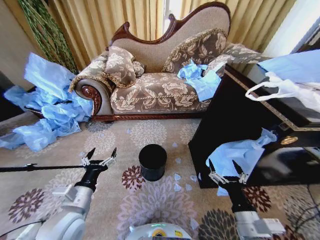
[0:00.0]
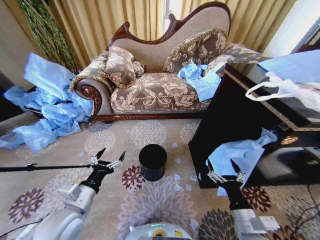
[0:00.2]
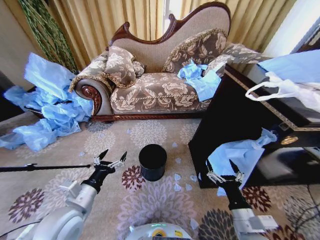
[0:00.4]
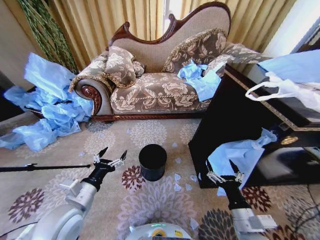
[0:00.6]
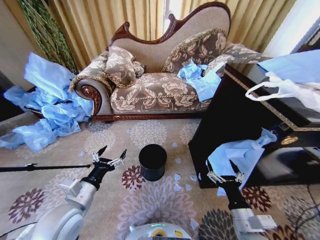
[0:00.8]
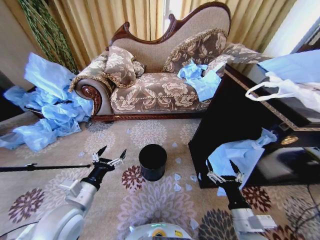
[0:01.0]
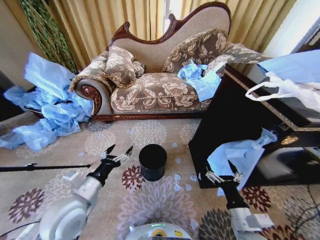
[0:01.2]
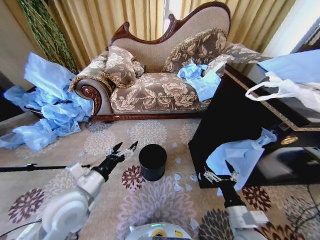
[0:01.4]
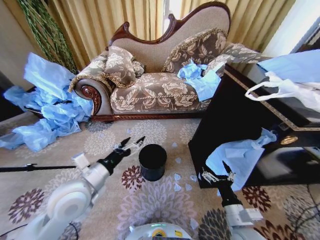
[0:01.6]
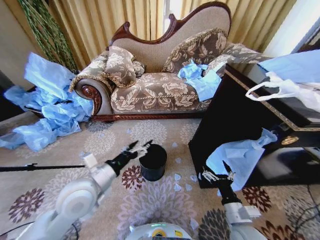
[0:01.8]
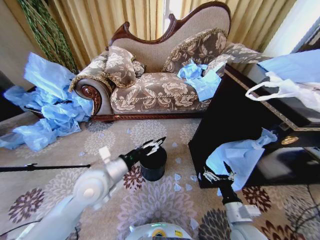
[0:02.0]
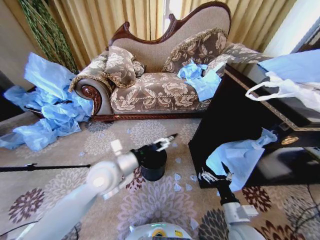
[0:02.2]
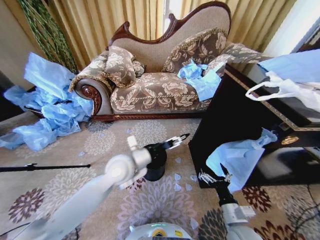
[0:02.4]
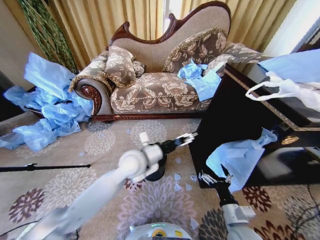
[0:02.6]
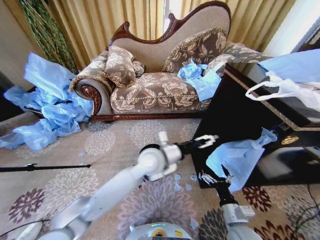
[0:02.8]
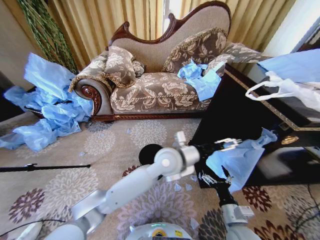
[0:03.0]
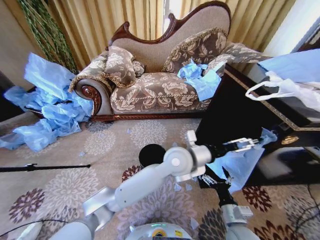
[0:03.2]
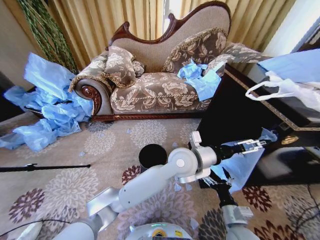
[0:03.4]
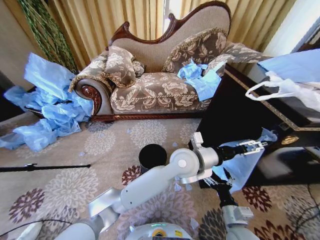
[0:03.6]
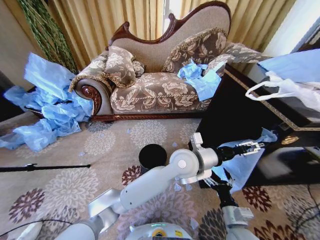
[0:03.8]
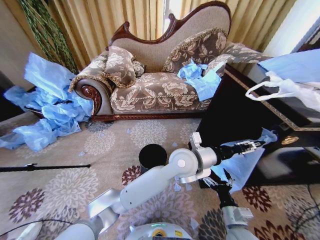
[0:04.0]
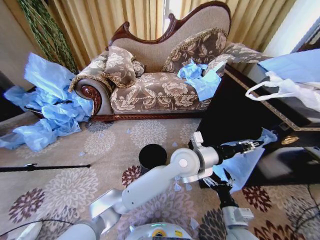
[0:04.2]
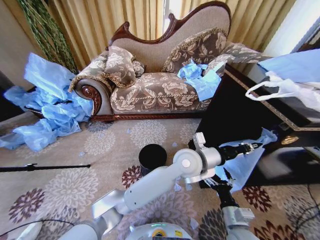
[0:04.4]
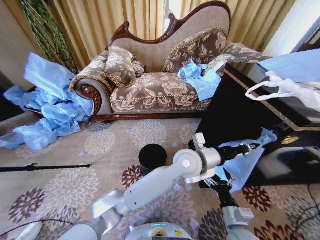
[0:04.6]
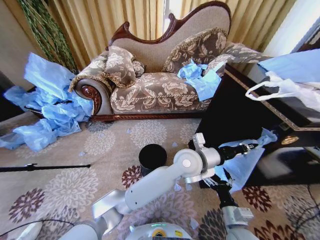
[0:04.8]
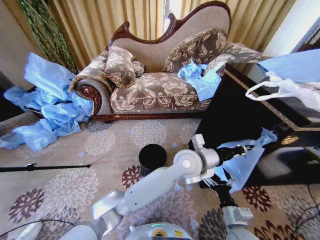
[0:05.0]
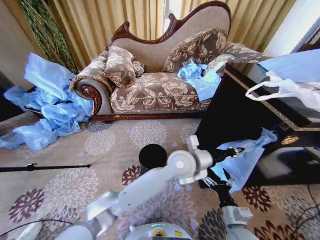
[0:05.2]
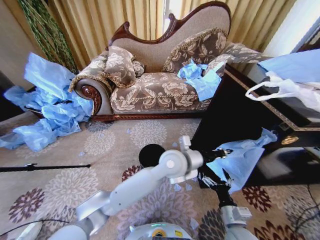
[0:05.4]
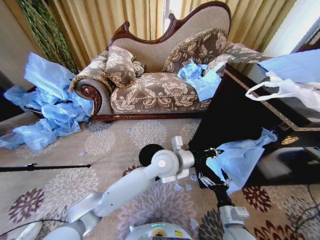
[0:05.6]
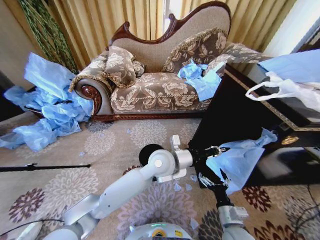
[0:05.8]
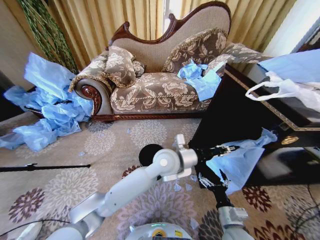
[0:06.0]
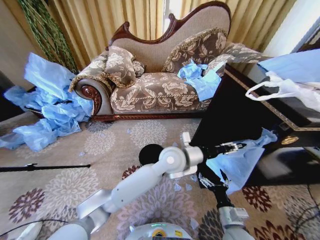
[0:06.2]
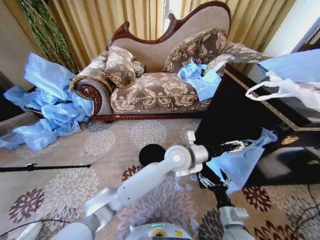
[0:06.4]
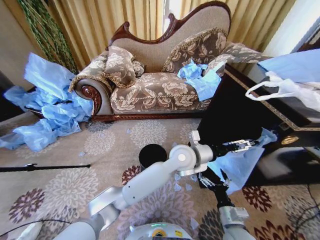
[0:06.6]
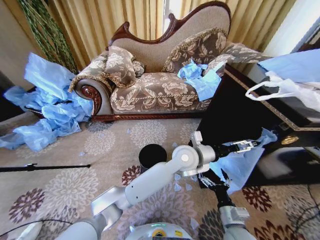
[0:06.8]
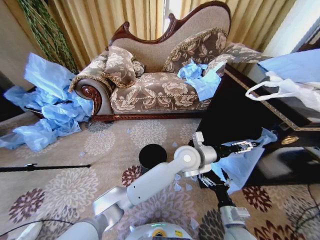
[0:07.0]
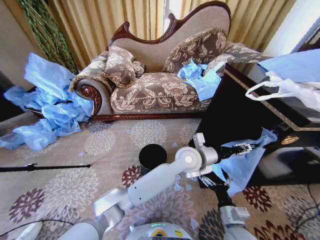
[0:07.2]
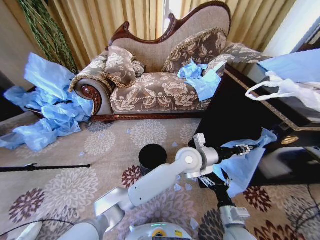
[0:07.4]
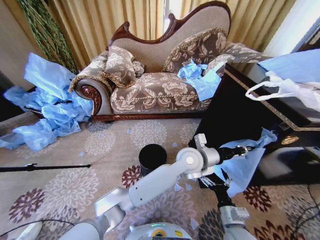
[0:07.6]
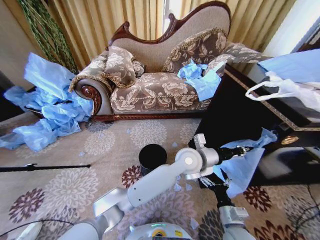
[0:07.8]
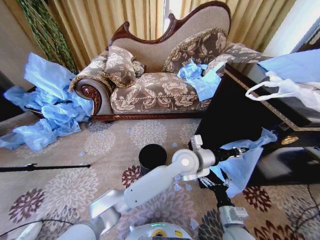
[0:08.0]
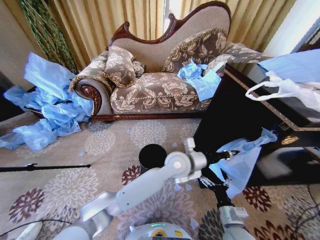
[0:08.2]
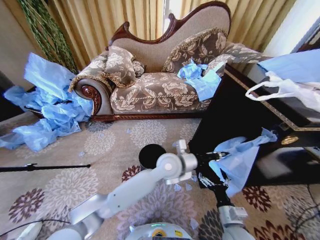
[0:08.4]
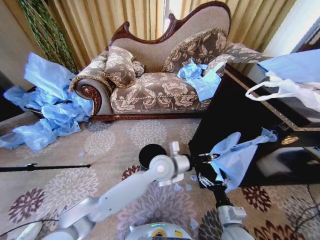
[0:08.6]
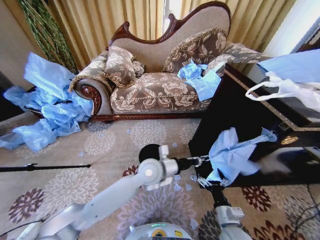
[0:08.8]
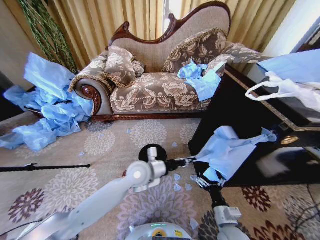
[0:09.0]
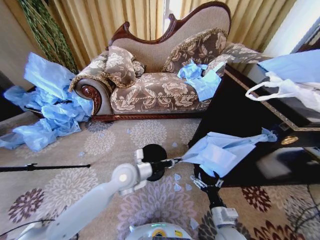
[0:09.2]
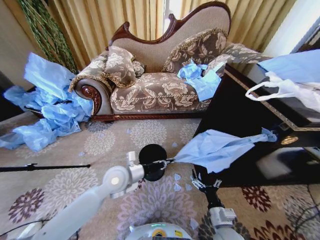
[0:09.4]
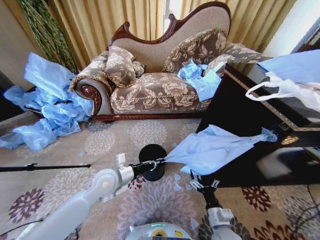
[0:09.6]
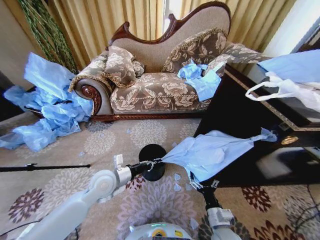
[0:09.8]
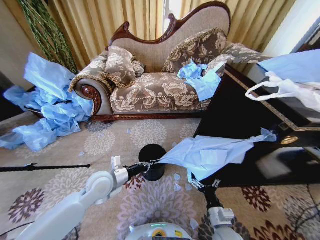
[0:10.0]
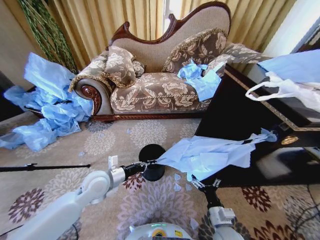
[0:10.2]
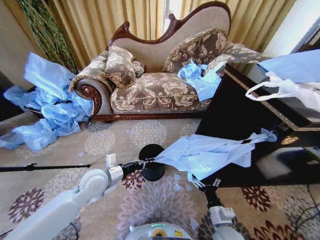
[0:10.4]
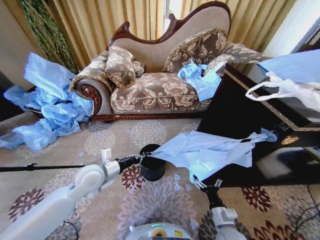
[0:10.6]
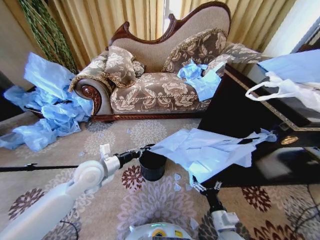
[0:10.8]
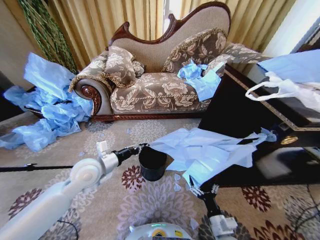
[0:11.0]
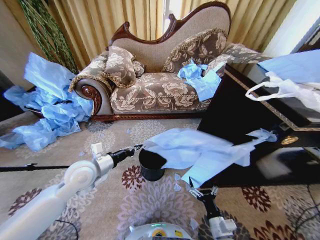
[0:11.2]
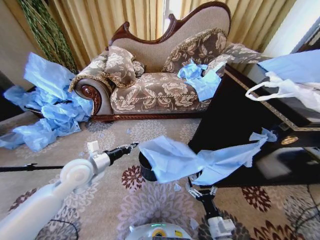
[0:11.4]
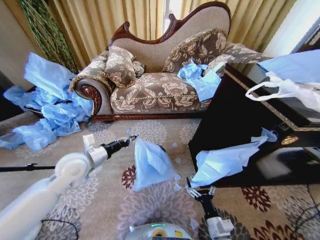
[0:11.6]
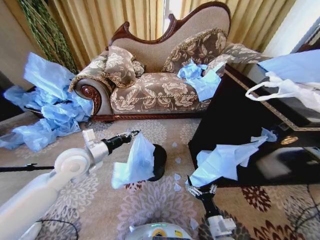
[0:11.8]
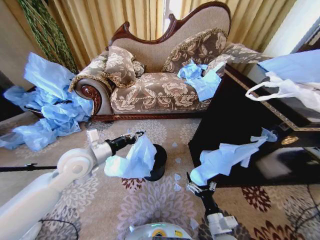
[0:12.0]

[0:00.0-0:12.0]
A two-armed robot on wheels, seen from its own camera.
Task of the whole recording: Place a garbage bag over the trash bin.
0:01.6 to 0:03.0: The left gripper travels to the right and forward by some 30 cm.
0:03.0 to 0:04.4: The left gripper travels to the right by roughly 5 cm, and closes.
0:04.4 to 0:06.0: The left gripper moves to the left, approximately 5 cm.
0:06.0 to 0:07.6: The left gripper is displaced to the right by about 10 cm, and opens, then closes again.
0:07.6 to 0:09.0: The left gripper moves to the left, some 20 cm.
0:09.0 to 0:10.4: The left gripper travels to the left by roughly 15 cm.
0:10.4 to 0:12.0: The left gripper shifts some 10 cm upward.

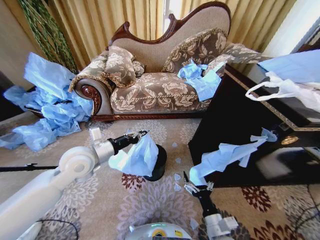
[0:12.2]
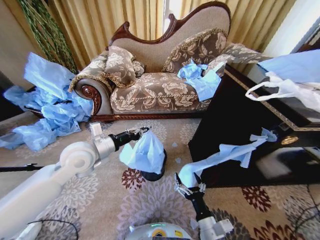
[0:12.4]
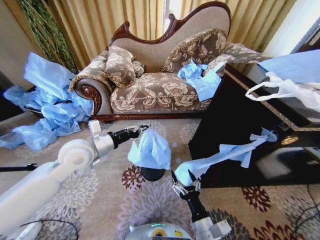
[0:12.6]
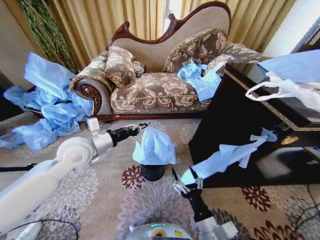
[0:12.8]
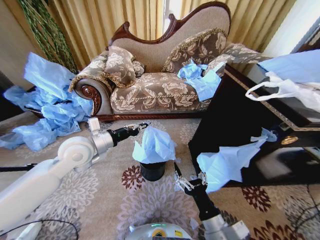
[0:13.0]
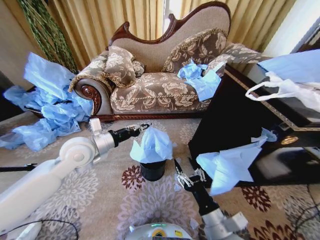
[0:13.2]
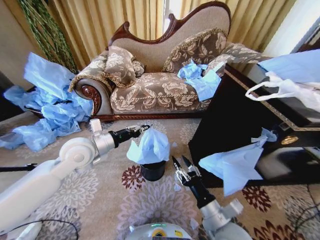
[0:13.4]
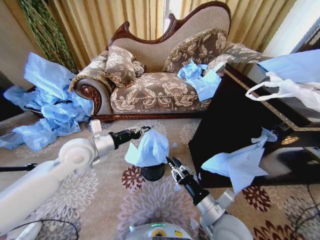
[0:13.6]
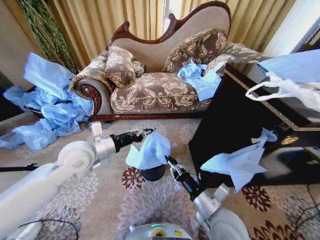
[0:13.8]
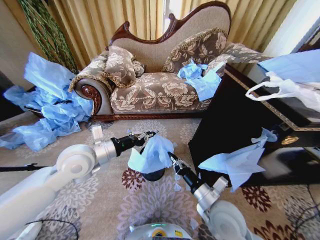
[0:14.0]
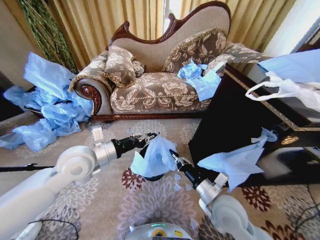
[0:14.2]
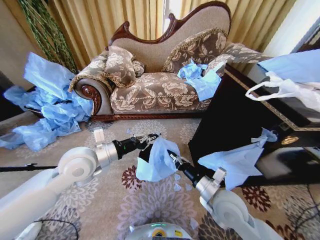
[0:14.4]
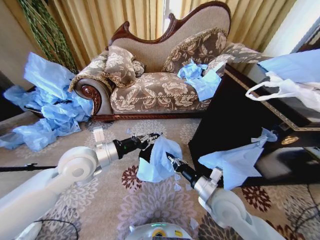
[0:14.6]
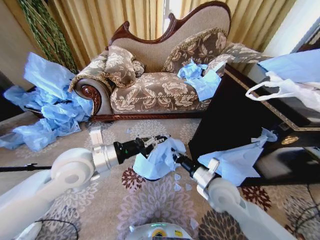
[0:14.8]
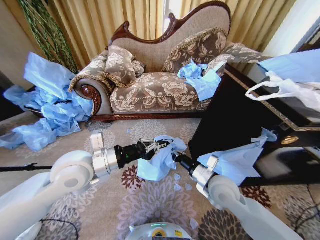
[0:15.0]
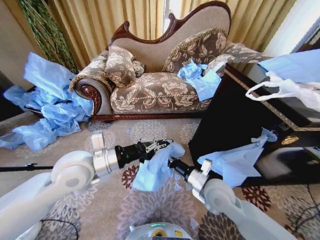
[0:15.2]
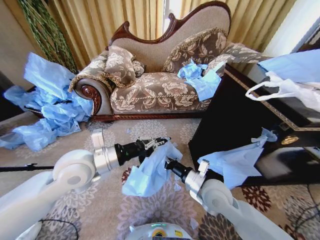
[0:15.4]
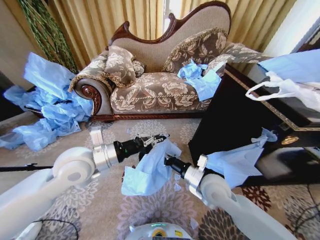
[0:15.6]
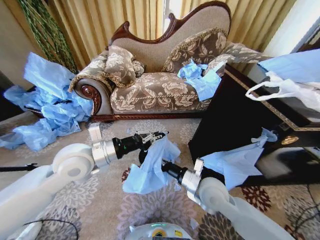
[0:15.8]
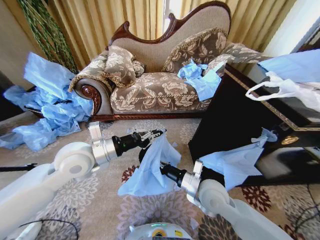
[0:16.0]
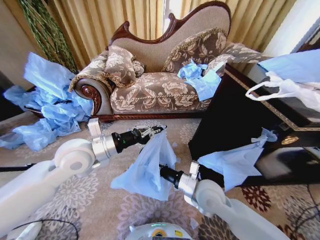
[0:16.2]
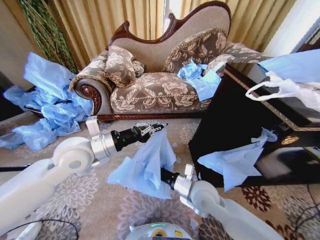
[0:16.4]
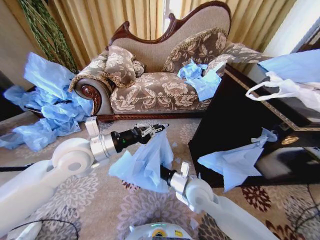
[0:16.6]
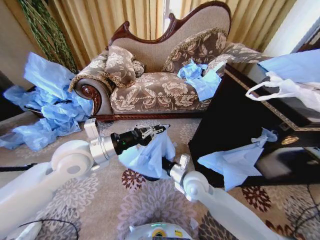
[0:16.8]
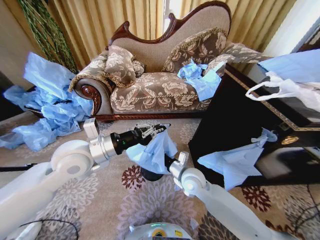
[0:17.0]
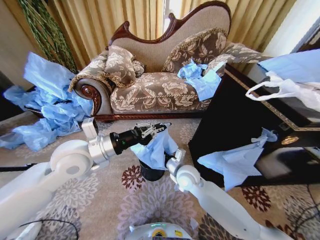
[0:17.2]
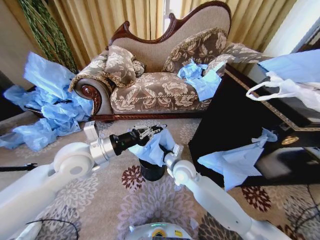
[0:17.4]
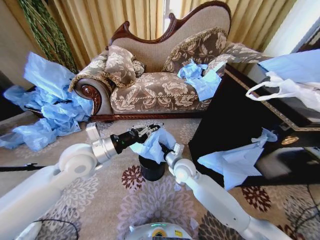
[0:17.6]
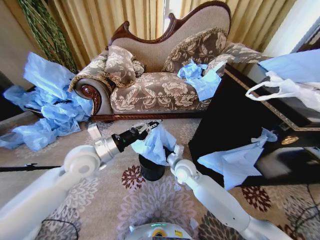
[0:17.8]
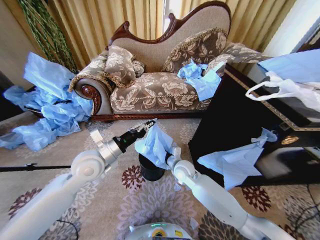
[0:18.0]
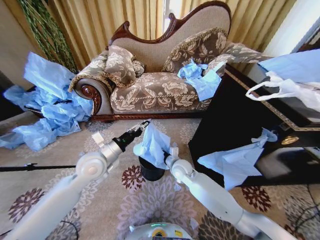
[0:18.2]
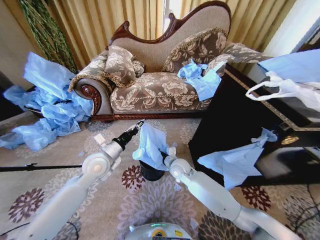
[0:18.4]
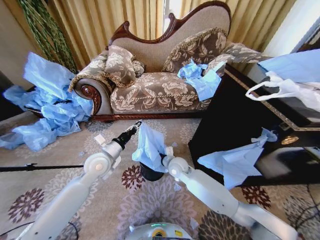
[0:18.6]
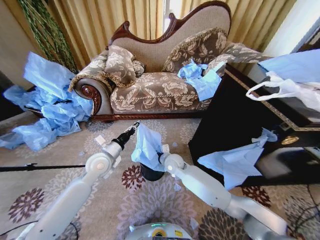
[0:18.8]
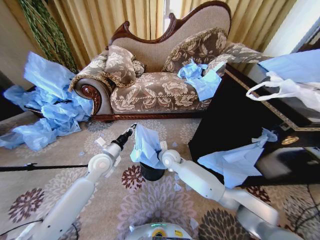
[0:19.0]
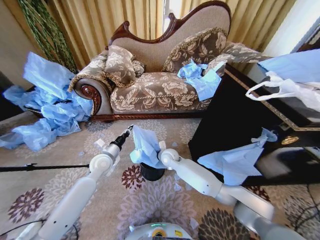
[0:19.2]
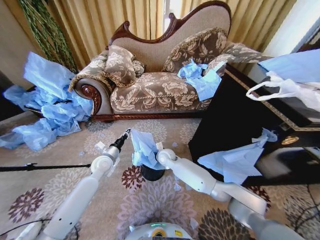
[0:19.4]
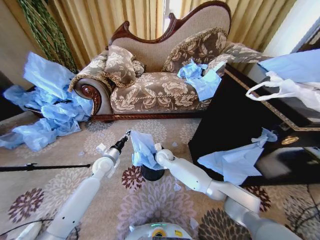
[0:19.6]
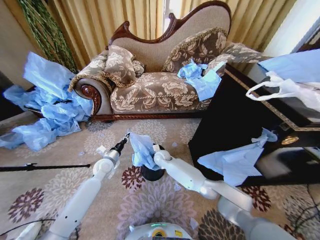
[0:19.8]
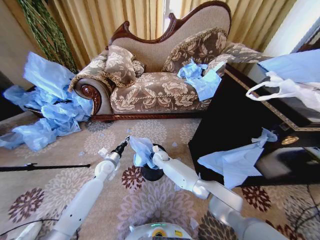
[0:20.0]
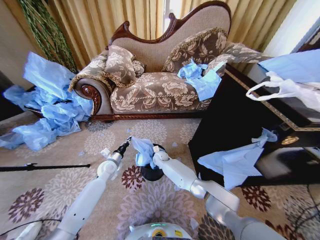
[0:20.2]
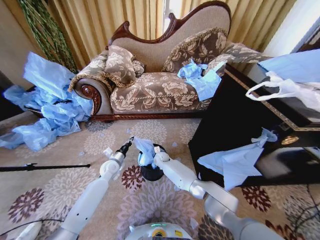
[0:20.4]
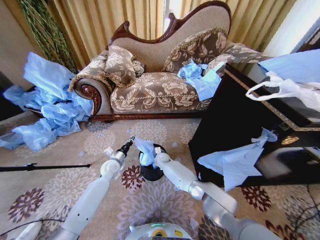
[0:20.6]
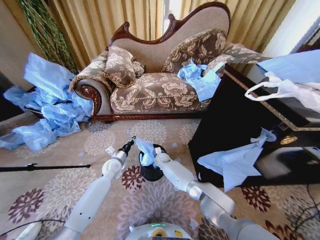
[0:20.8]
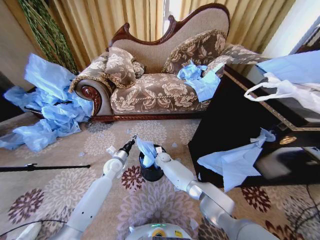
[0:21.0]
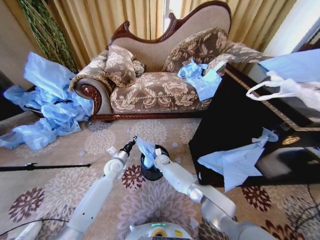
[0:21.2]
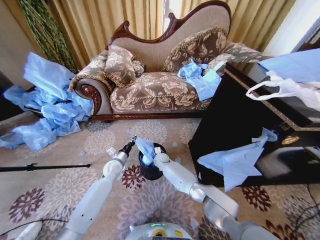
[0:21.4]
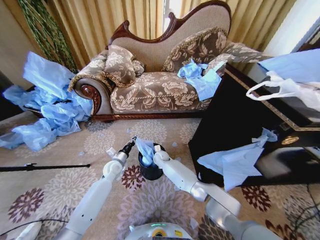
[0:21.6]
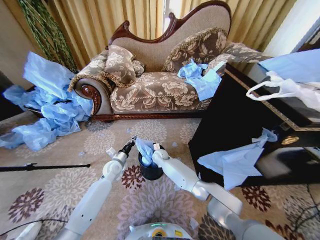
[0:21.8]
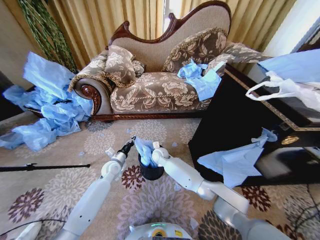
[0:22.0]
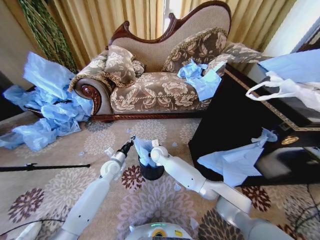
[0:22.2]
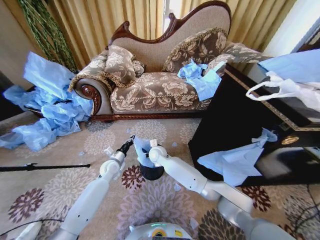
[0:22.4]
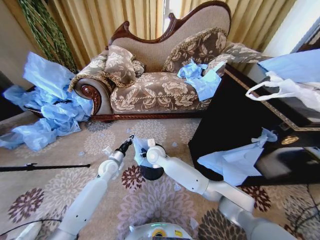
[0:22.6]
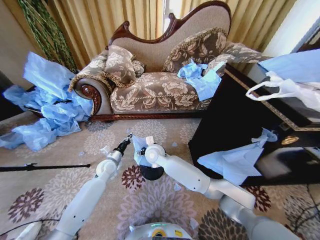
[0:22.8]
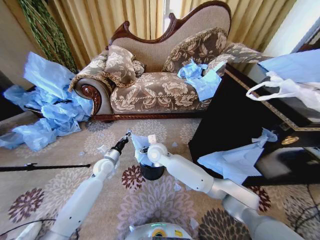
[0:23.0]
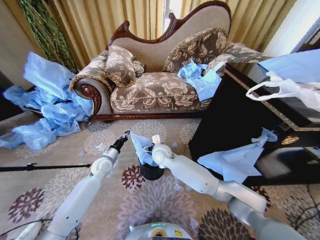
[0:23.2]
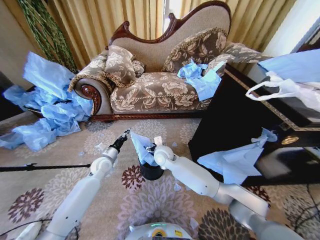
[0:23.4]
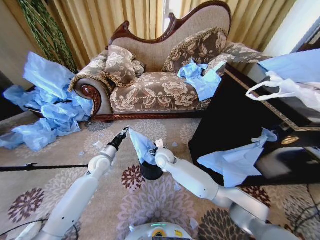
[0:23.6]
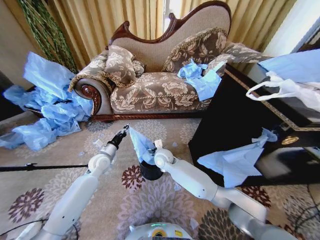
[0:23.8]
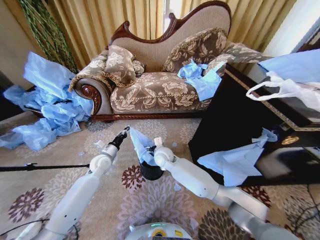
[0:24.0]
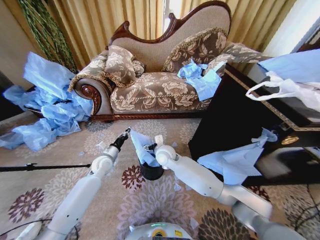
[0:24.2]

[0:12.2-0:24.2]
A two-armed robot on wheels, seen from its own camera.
Task of the whole recording: Place a garbage bag over the trash bin.
0:12.2 to 0:13.8: The right gripper shifts some 10 cm upward and forward, and closes up.
0:13.8 to 0:15.2: The left gripper ends up approximately 5 cm from where it was; the right gripper is displaced forward by roughly 10 cm.
0:15.2 to 0:16.6: The right gripper moves to the left, some 5 cm.
0:16.6 to 0:18.2: The left gripper goes approximately 10 cm downward; the right gripper travels forward and downward by some 15 cm.
0:18.2 to 0:19.8: The right gripper goes some 15 cm forward, to the left and downward; the left gripper shifts approximately 20 cm downward and forward.
0:19.8 to 0:21.2: The right gripper moves downward, about 5 cm.
0:21.2 to 0:22.6: The right gripper travels upward and backward by some 20 cm, and opens its fingers.
0:22.6 to 0:24.2: The right gripper ends up some 5 cm from where it was.
